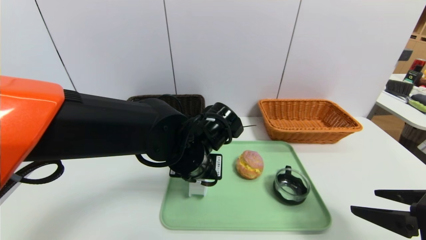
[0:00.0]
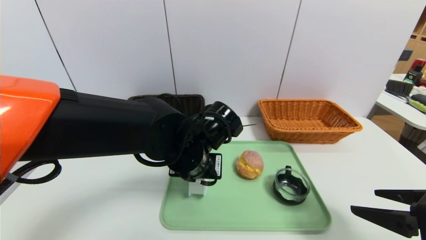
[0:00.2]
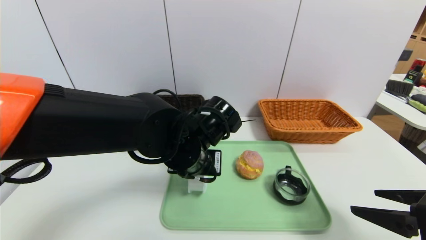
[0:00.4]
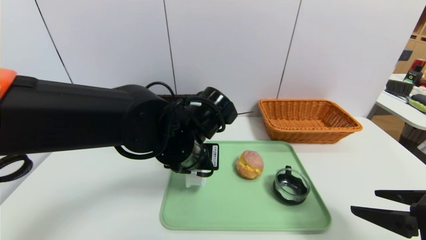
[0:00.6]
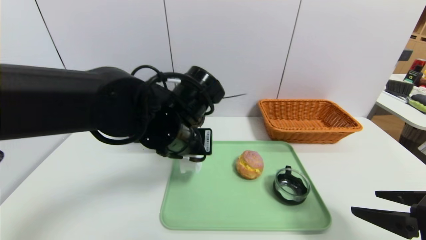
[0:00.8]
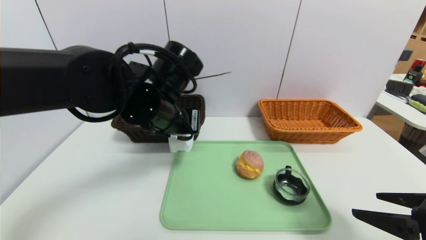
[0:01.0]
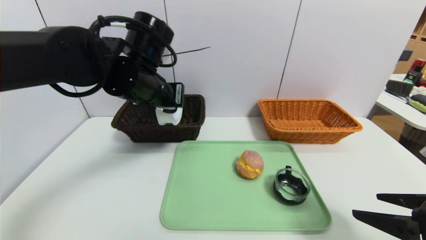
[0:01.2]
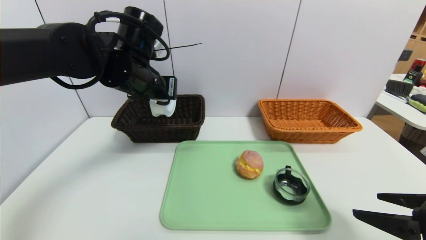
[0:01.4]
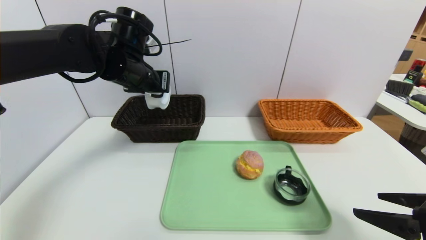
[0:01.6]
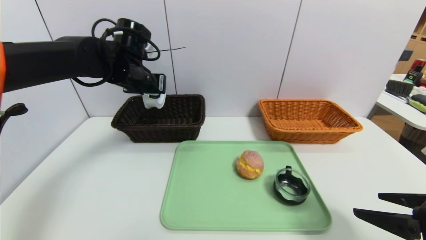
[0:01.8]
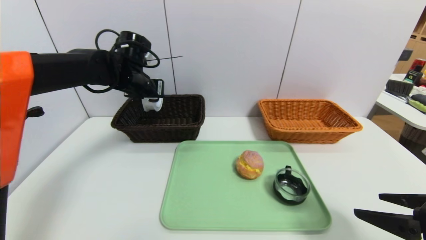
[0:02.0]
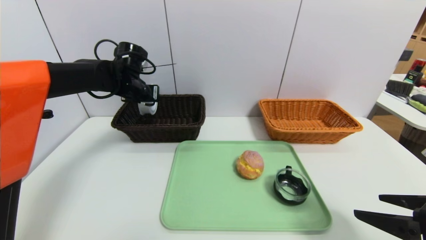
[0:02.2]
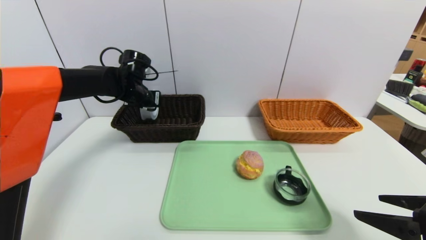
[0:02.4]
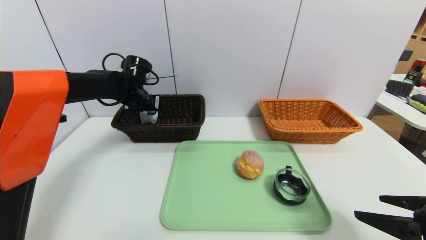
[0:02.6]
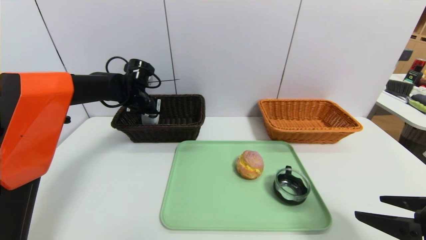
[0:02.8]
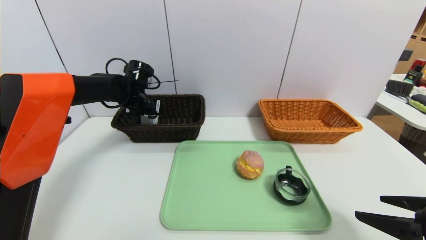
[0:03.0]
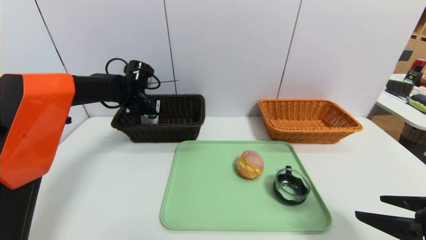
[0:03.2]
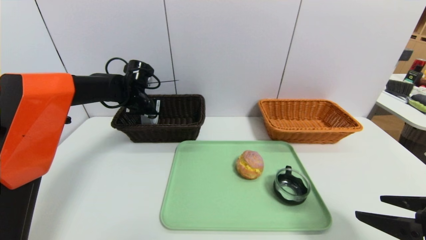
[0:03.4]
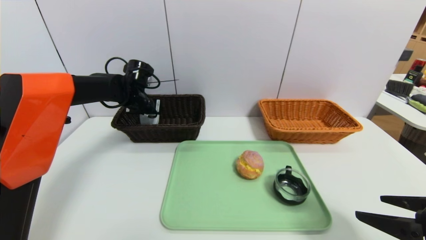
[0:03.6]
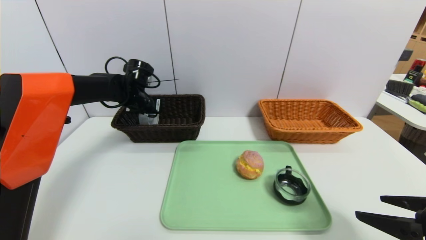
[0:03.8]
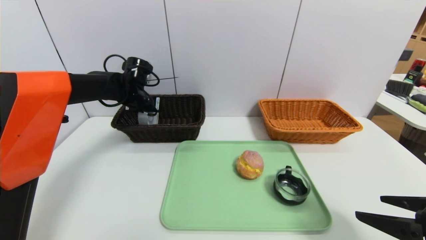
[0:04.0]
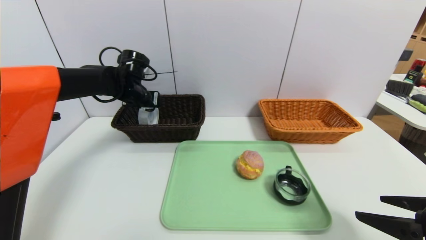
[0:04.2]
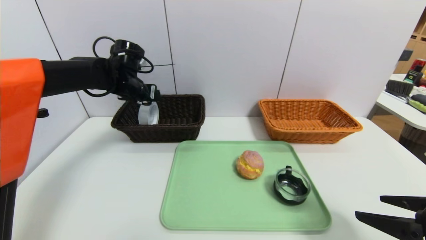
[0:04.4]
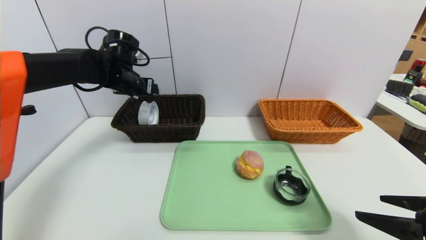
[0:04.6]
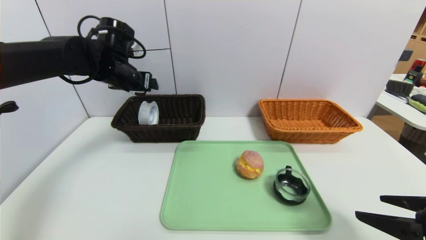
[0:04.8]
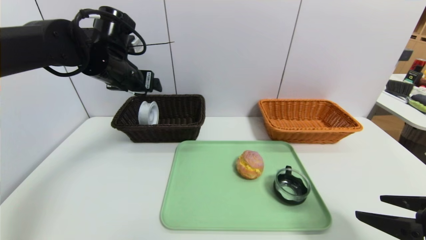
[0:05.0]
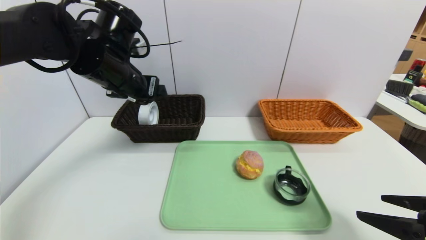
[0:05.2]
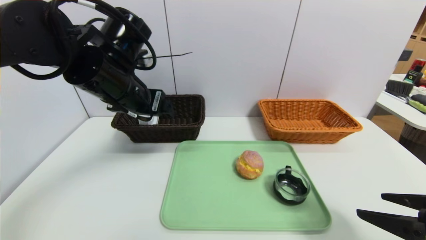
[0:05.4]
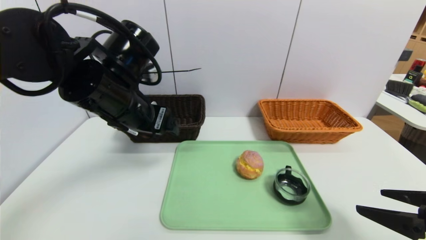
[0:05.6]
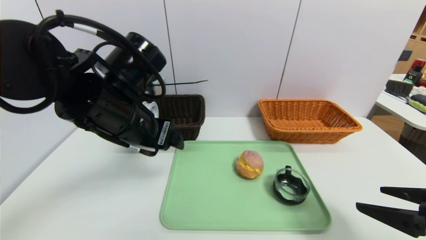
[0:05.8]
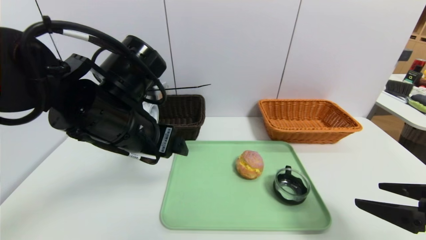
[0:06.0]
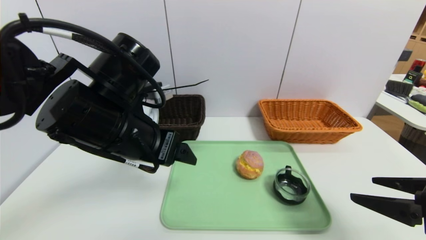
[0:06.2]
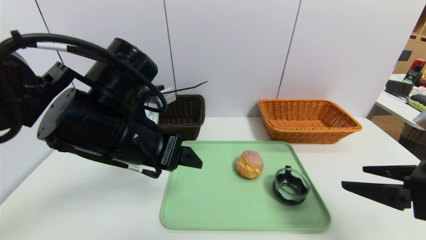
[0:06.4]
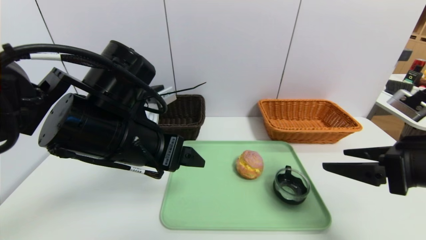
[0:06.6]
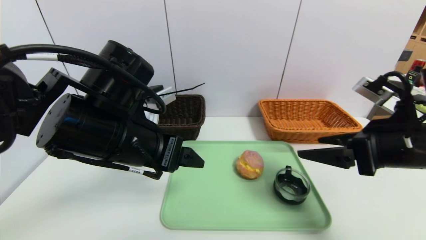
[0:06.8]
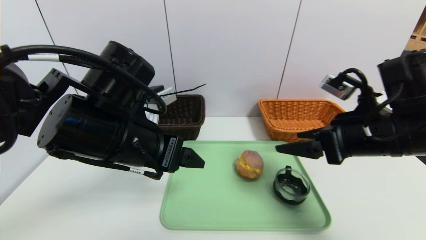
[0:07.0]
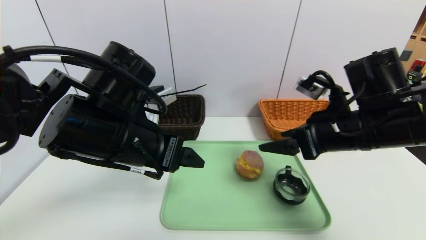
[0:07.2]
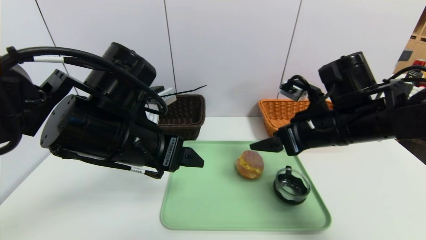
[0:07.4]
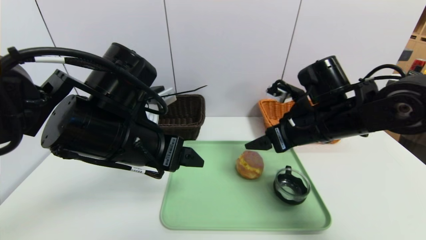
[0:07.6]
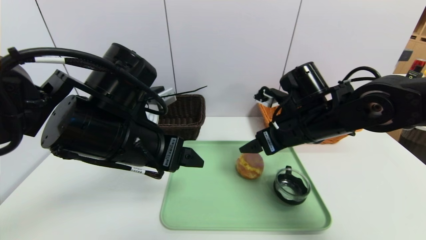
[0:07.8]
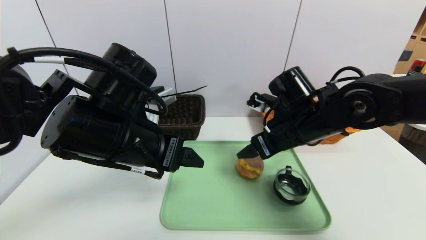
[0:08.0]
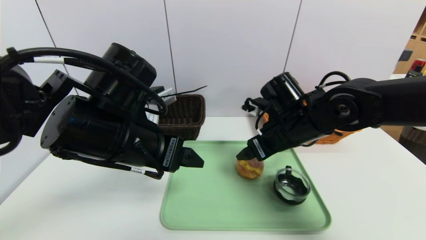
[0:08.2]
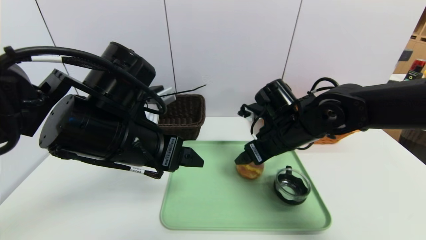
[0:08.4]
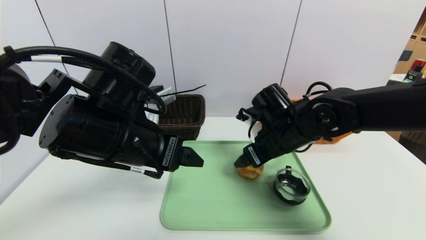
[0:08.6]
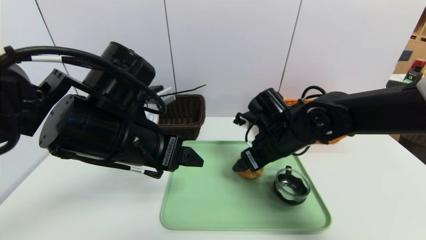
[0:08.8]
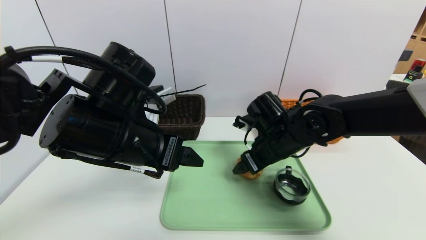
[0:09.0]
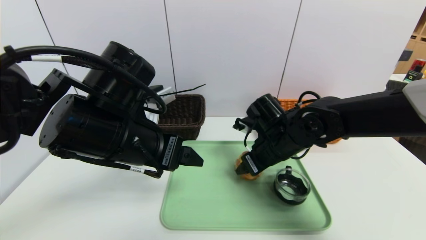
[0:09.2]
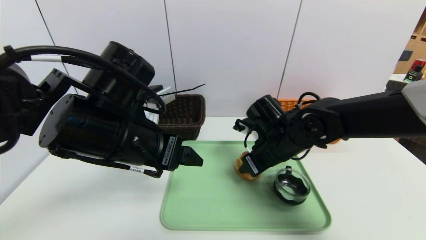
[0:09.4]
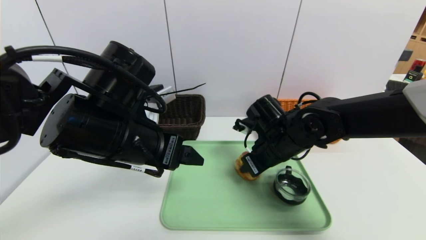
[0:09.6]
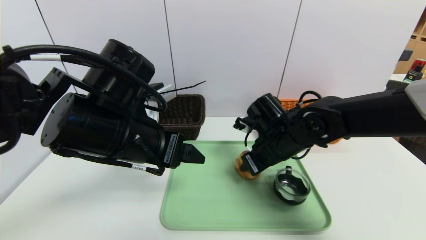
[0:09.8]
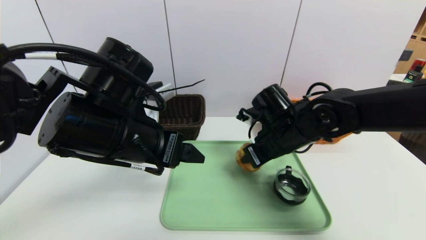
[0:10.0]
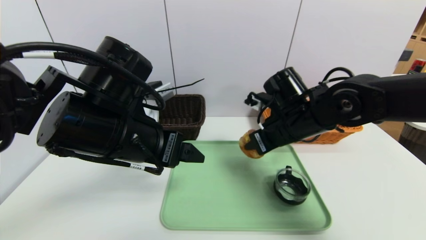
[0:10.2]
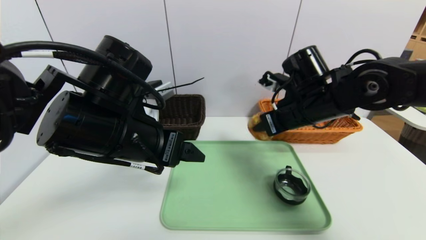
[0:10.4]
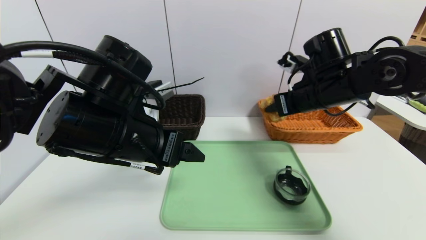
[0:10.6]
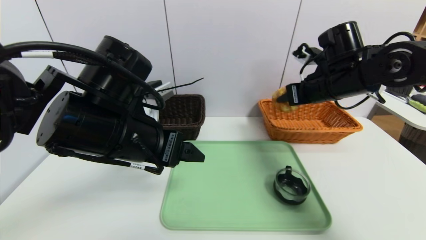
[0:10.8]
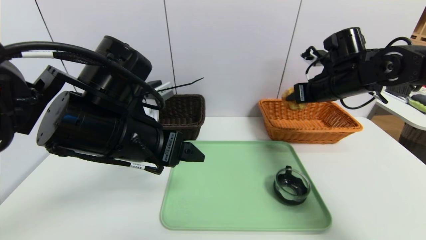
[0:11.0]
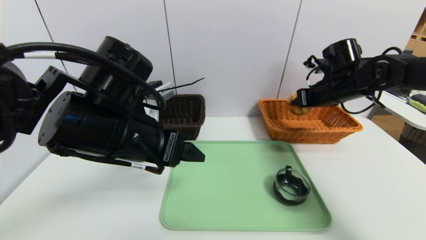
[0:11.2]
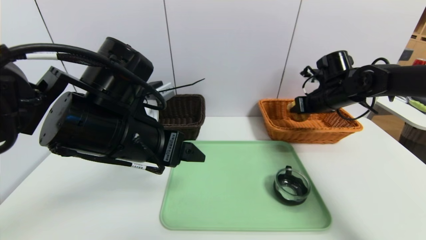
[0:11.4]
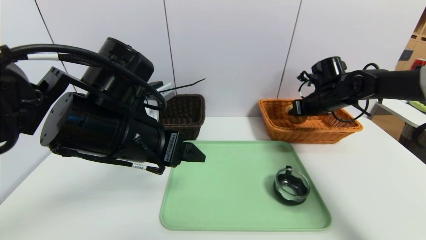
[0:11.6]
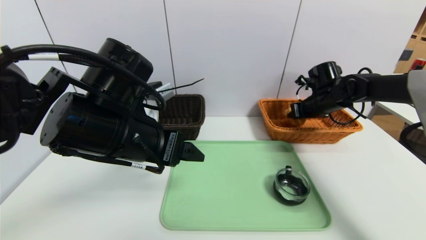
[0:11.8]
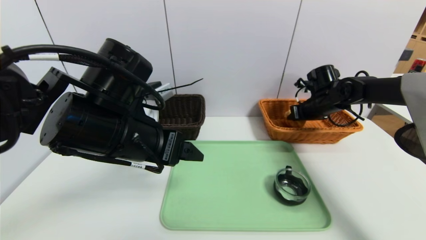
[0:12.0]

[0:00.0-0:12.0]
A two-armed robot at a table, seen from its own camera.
Task of the whole recording: place the food in the right basket with the right gripper, and place the non food items in the left basket with the left gripper.
Step, 0:00.0 to 0:04.2: Grasp the tape and put it in the left basket.
0:00.0 to 0:01.6: The left gripper shifts approximately 20 cm to the left, upward and forward.
0:01.6 to 0:03.0: The left gripper travels downward and forward by approximately 15 cm.
0:03.0 to 0:04.4: The left gripper moves upward, about 5 cm, and opens up.
0:04.4 to 0:06.0: The left gripper moves backward and to the right, roughly 25 cm.
0:06.0 to 0:07.6: The right gripper goes some 20 cm forward and to the left.
0:07.6 to 0:09.0: The right gripper shifts roughly 5 cm downward.
0:09.0 to 0:10.4: The right gripper goes roughly 10 cm upward and to the right, and closes its fingers.
0:10.4 to 0:12.0: The right gripper moves forward, to the right and downward, approximately 20 cm.

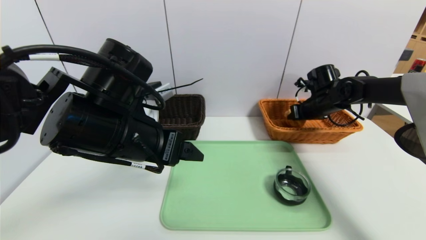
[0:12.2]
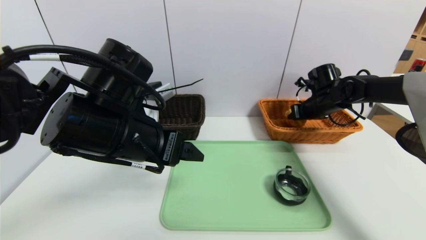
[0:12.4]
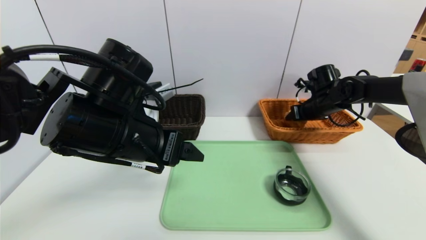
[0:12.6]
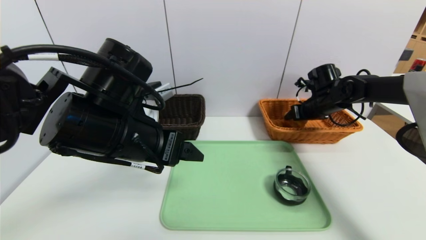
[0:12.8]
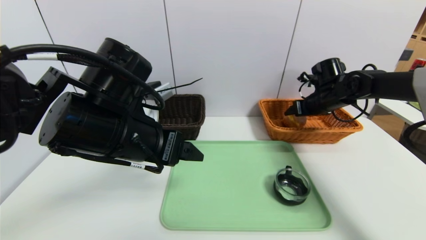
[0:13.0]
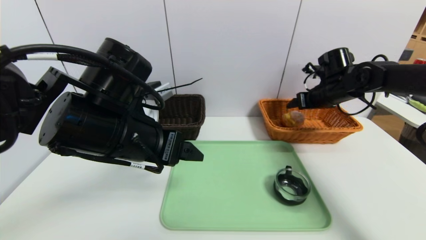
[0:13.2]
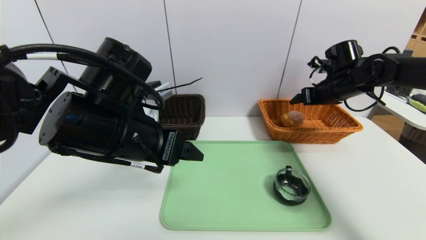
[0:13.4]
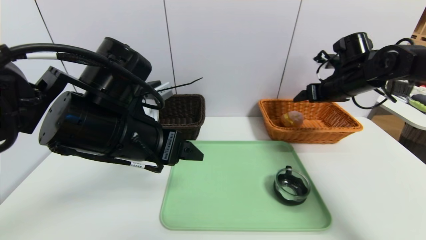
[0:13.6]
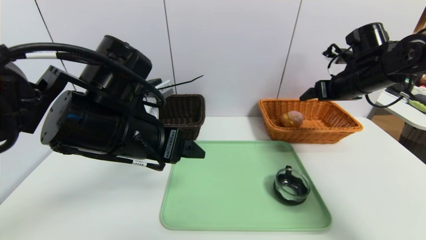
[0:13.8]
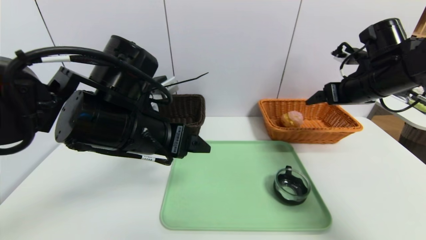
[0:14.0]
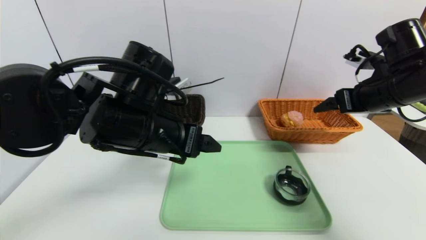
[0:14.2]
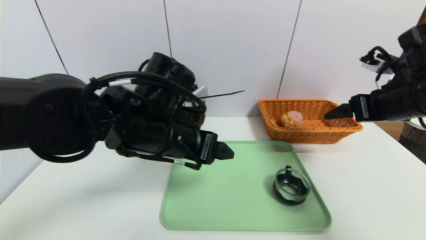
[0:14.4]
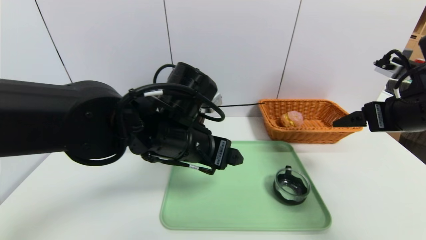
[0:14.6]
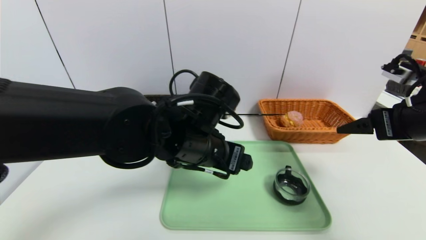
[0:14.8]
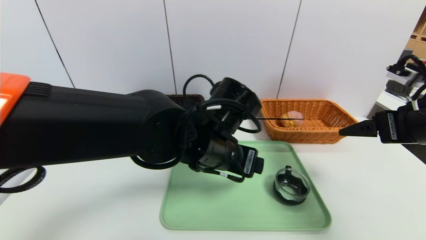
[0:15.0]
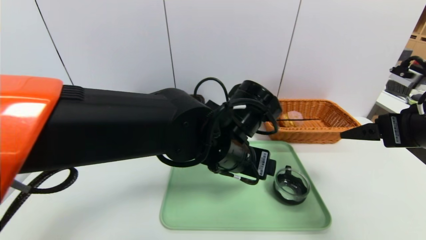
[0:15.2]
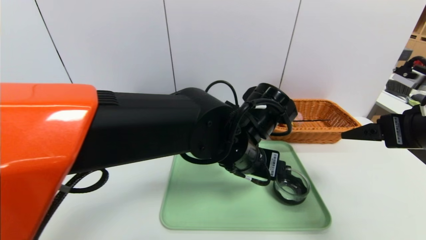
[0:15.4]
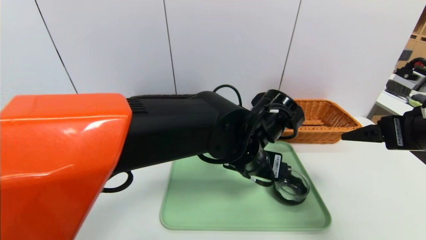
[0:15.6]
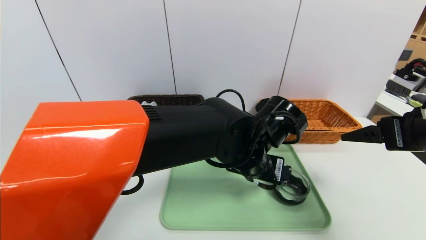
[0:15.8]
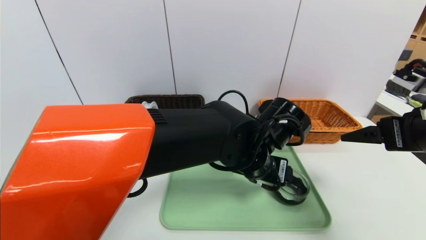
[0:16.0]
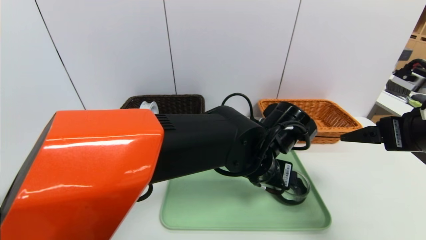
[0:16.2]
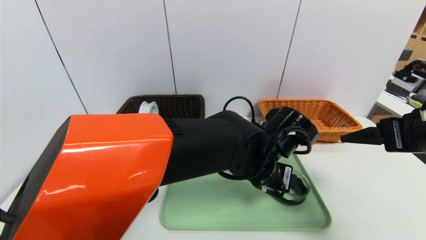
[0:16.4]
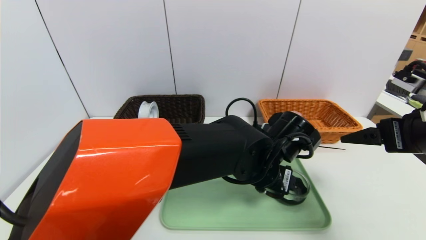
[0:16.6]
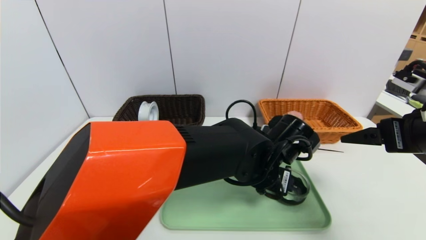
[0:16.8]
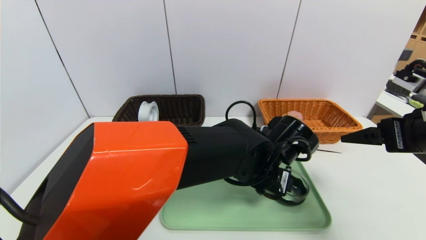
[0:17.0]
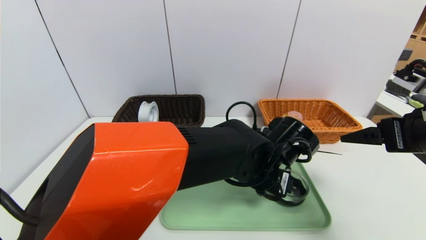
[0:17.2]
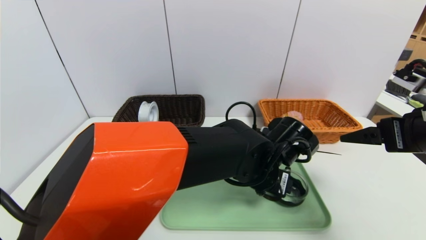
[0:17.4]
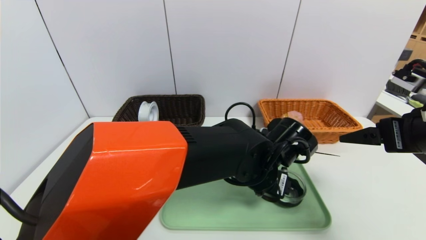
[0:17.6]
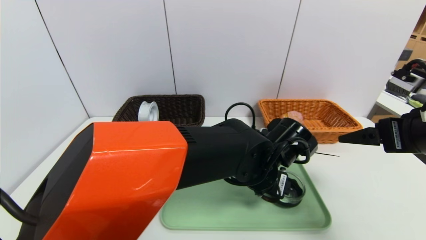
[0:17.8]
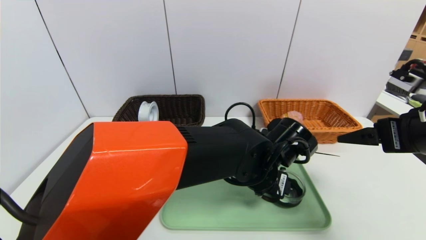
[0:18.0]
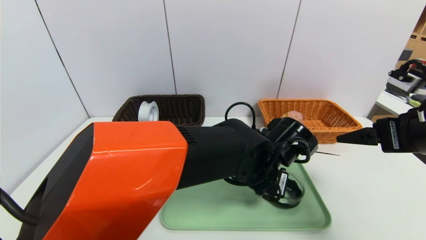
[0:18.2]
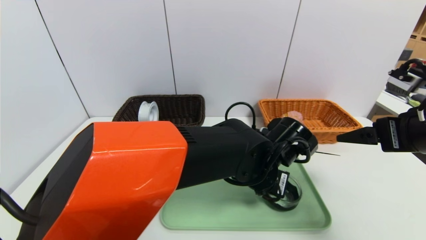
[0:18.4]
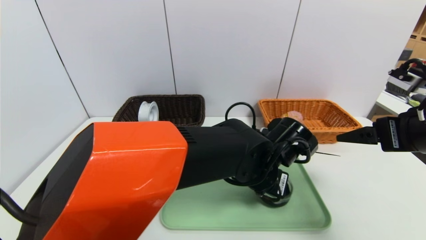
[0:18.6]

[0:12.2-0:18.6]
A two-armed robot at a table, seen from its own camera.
Task of the whole recording: place the food in the right basket with the right gripper, and place the non food items in the left basket with the left gripper.
0:12.2 to 0:13.8: The right gripper moves upward and backward, some 15 cm, and opens.
0:13.8 to 0:15.4: The right gripper heads backward, covering roughly 15 cm, while the left gripper moves to the right, about 15 cm.
0:15.4 to 0:17.0: The left gripper moves downward, approximately 5 cm.
0:17.0 to 0:18.6: The left gripper closes up.
